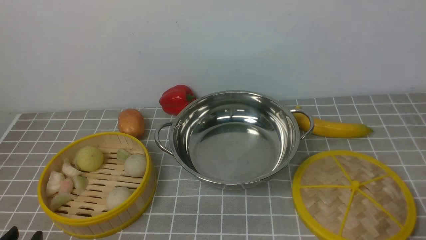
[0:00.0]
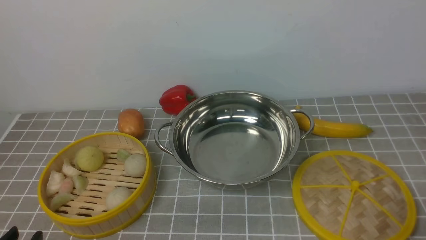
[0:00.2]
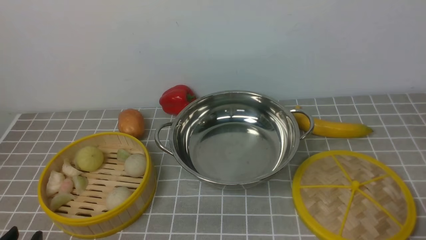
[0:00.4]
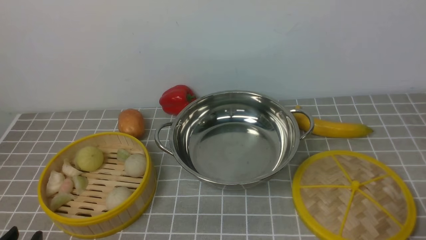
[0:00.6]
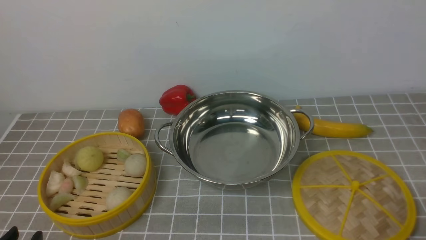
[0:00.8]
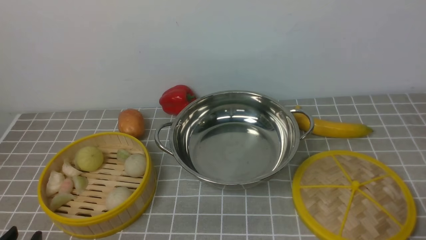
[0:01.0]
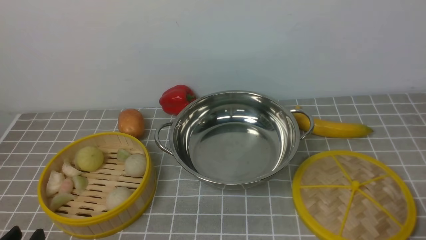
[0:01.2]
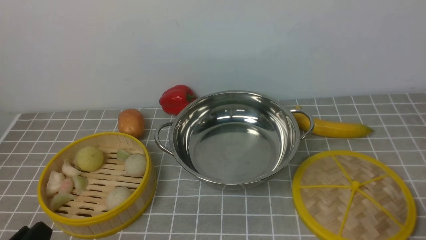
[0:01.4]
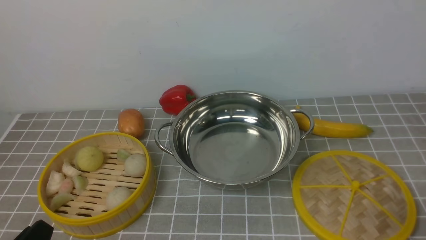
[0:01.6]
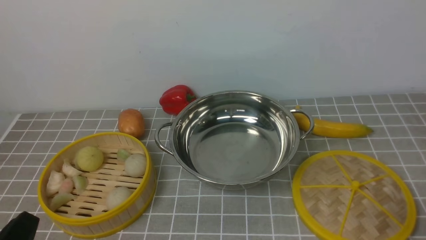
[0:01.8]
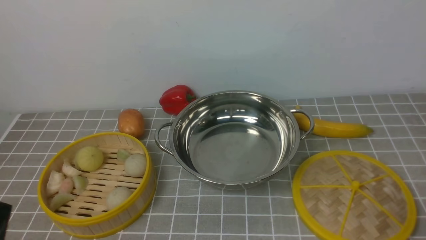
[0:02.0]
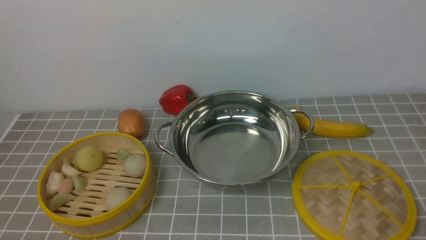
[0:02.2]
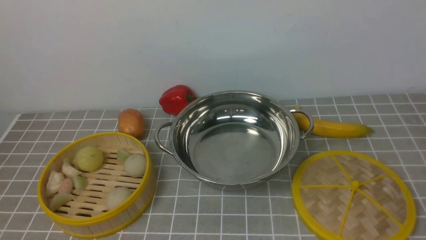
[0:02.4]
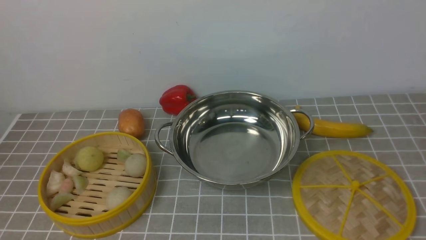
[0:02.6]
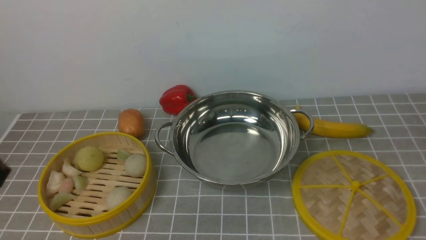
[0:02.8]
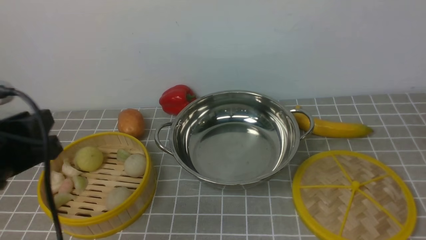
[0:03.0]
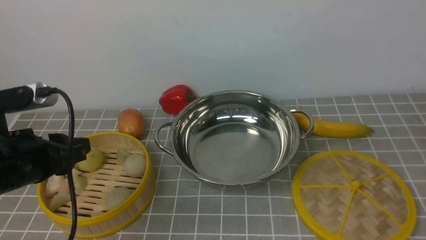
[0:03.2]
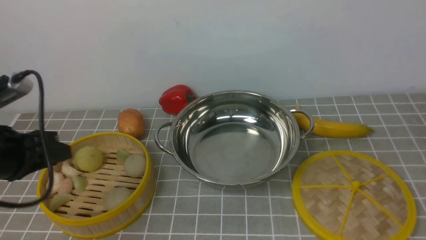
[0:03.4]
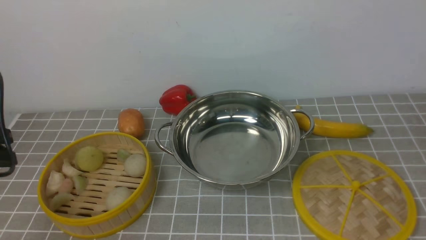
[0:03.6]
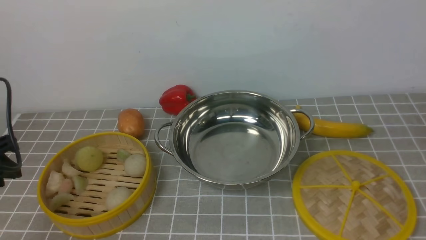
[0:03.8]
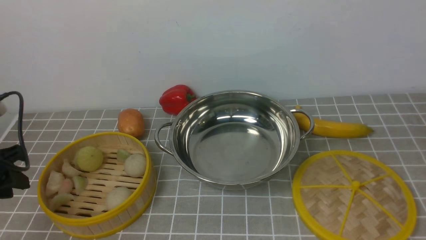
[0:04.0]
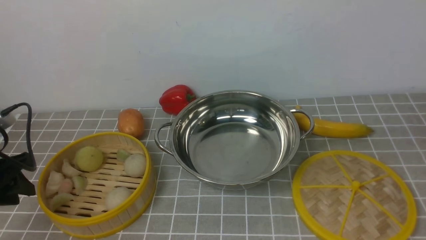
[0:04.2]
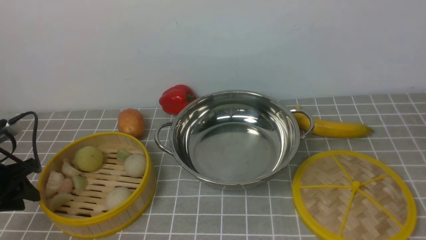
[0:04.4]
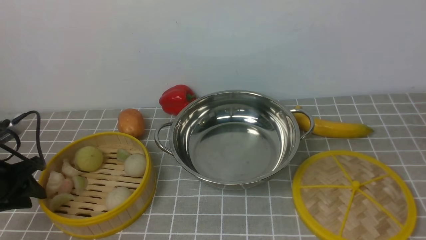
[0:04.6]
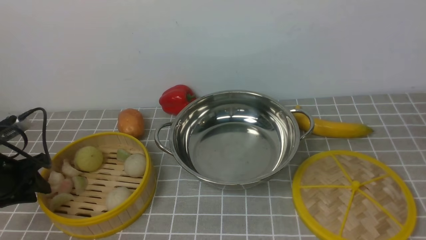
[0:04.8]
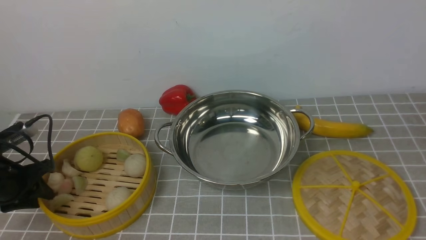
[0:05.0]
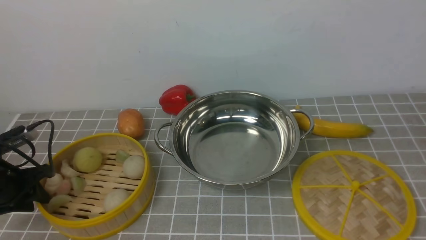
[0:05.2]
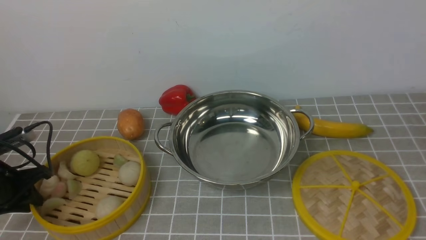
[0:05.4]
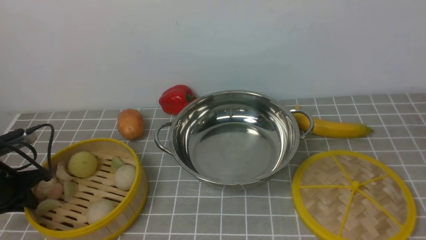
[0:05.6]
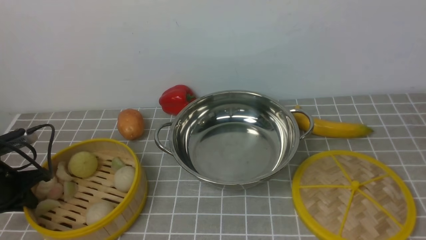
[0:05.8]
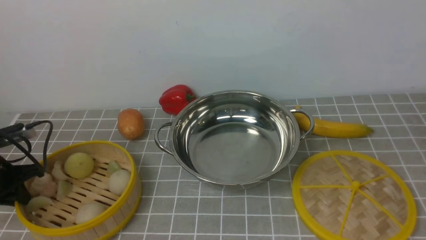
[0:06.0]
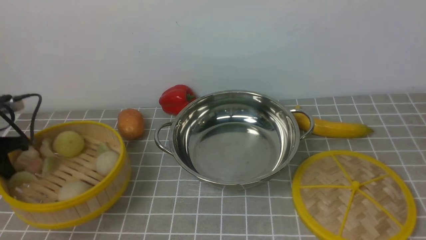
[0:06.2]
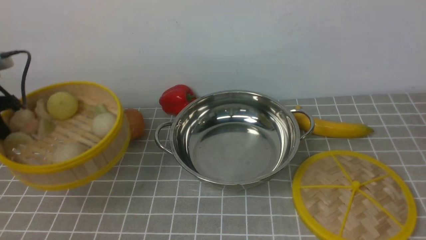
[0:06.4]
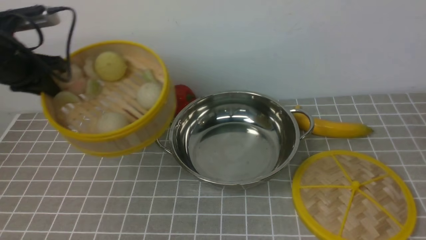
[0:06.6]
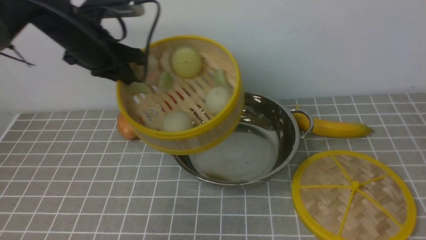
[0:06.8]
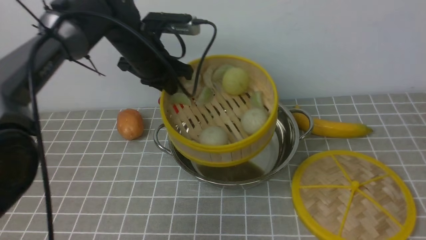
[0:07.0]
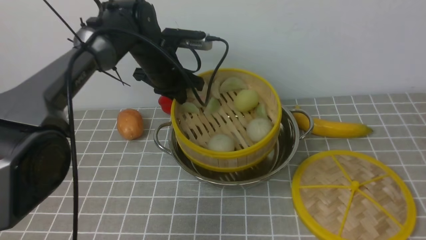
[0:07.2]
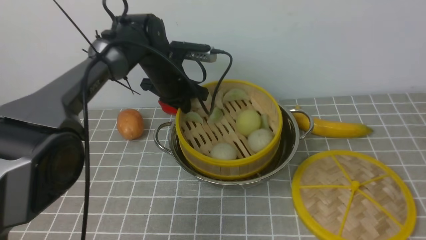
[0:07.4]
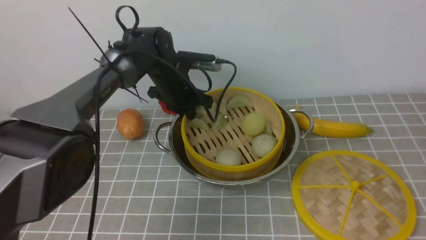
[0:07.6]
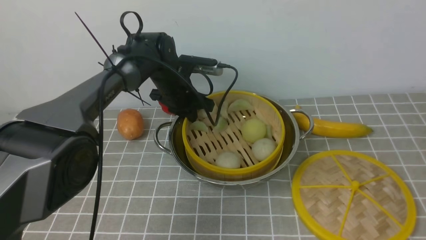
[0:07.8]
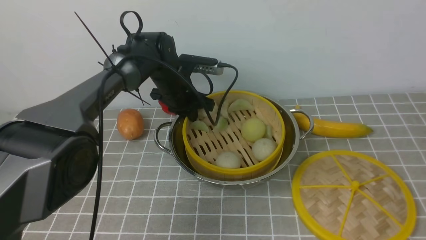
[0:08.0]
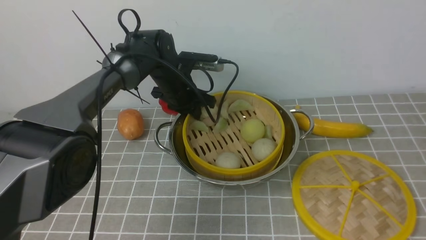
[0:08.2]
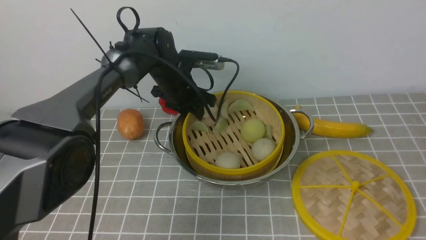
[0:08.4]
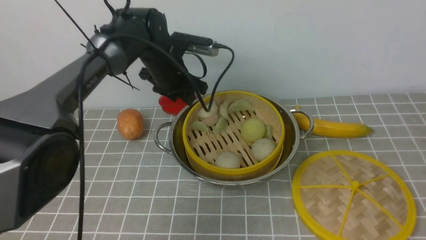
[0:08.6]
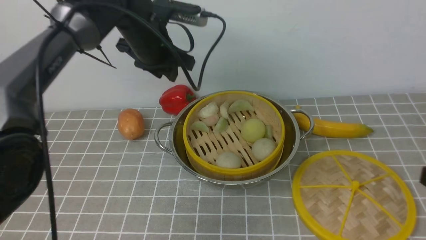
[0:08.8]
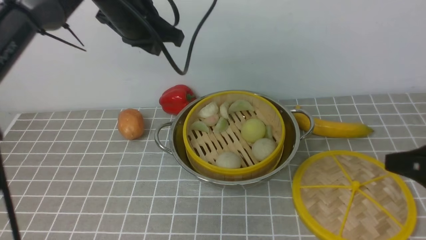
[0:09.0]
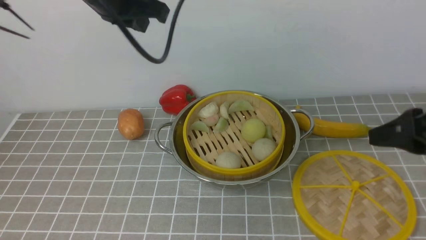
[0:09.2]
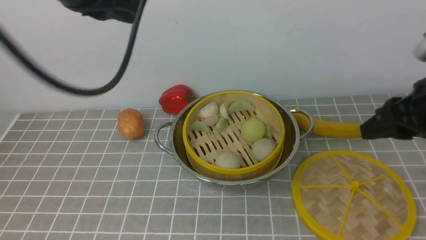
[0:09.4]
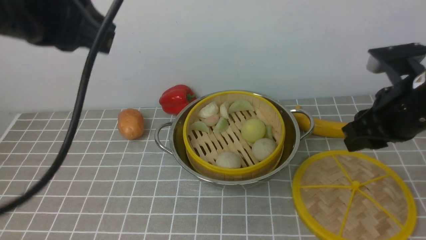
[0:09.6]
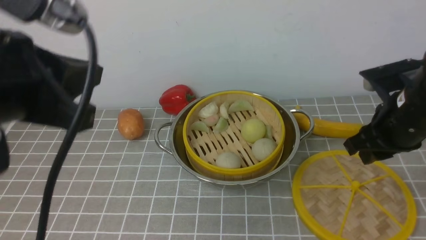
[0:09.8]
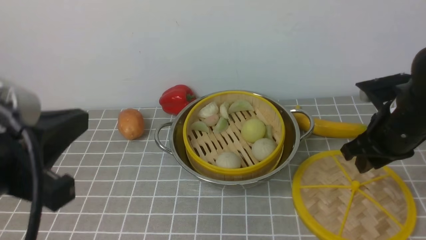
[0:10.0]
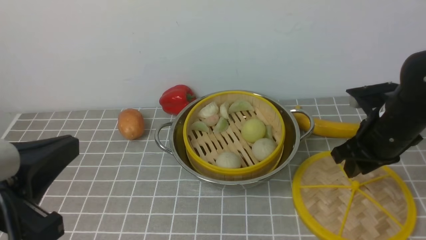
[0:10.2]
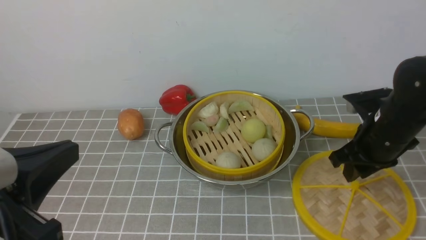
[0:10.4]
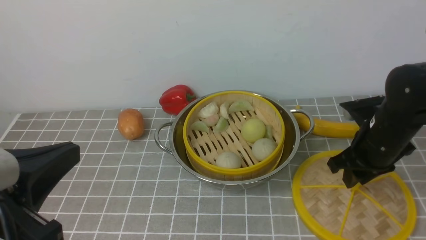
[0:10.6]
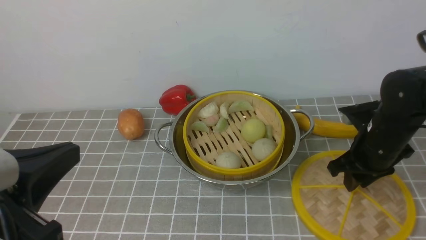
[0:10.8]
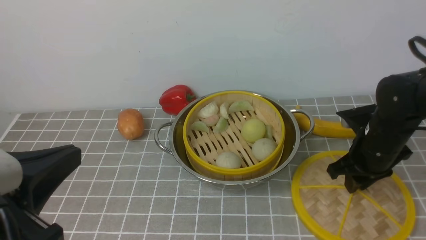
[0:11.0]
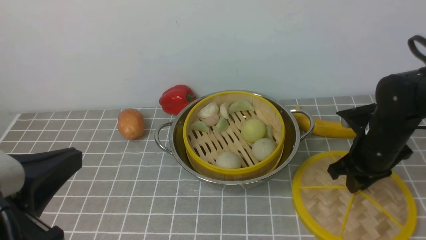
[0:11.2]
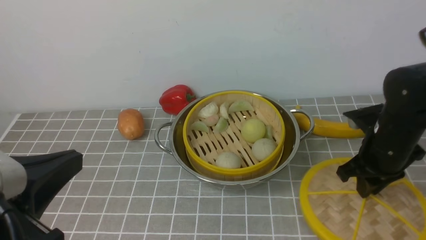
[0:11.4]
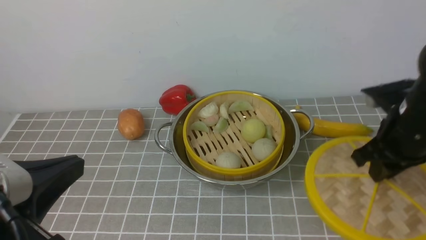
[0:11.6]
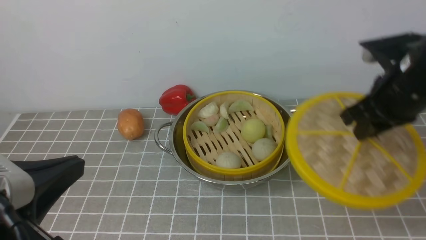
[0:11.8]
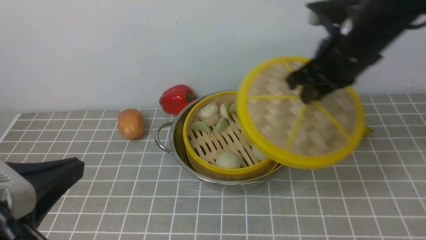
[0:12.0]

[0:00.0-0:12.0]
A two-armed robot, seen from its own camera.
Task of the whole recording: place the steamer in the pot on the grey tablecloth, and put the lid on the steamer.
Step, 0:00.0 to 0:06.0: use the left arm to lift the steamer closest to it.
Step, 0:06.2 to 0:08.4: use the left arm to put the steamer into the iron steamer pot in the middle.
Step, 0:08.6 to 0:11.4: use the right arm to lift the lid of the steamer.
0:01.6 to 0:03.0: The left gripper travels upward and forward by some 15 cm.
0:03.0 to 0:04.4: The left gripper shifts some 20 cm to the left, forward and downward.
0:04.4 to 0:06.0: The left gripper closes up.
0:06.0 to 0:07.6: The left gripper shifts about 35 cm to the right and forward.
0:07.6 to 0:09.0: The right gripper moves forward, approximately 5 cm; the left gripper travels upward by some 15 cm, and opens, then closes once more.
0:09.0 to 0:10.4: The right gripper is displaced forward and downward by some 20 cm; the left gripper is displaced backward by some 35 cm, and closes.
0:10.4 to 0:12.0: The right gripper shifts about 10 cm upward.

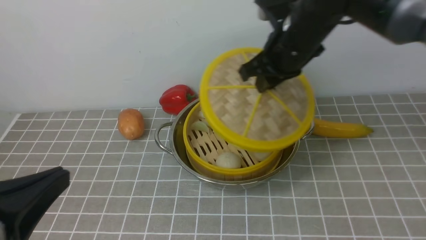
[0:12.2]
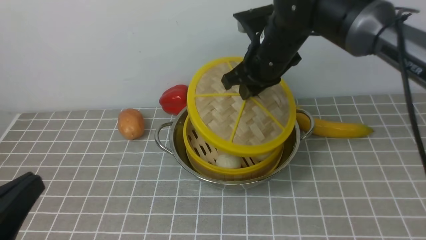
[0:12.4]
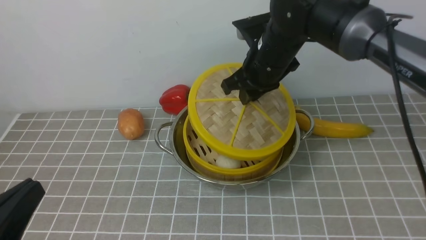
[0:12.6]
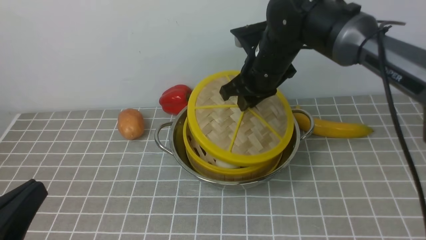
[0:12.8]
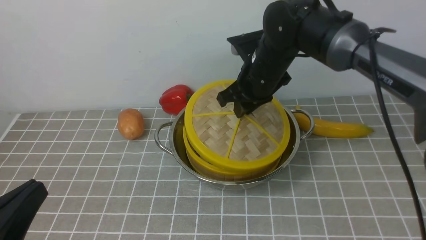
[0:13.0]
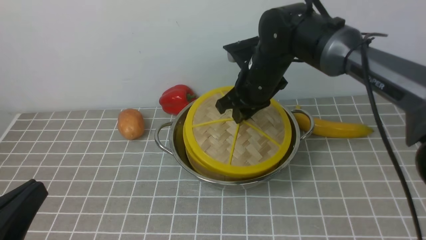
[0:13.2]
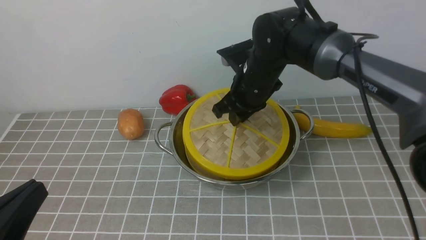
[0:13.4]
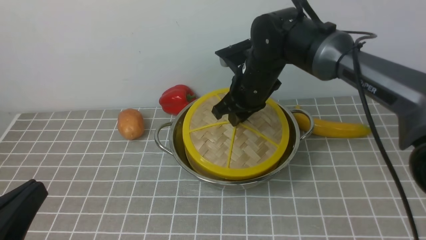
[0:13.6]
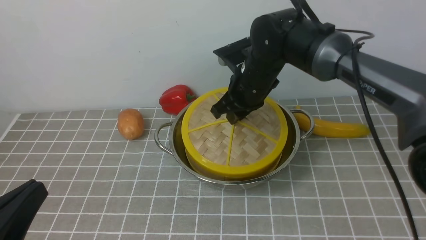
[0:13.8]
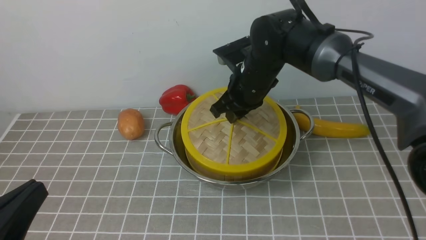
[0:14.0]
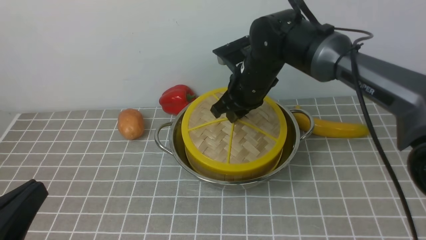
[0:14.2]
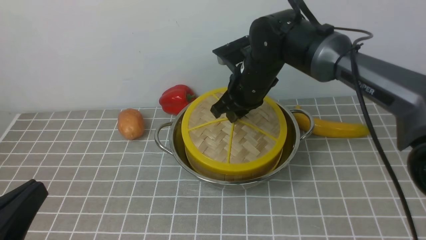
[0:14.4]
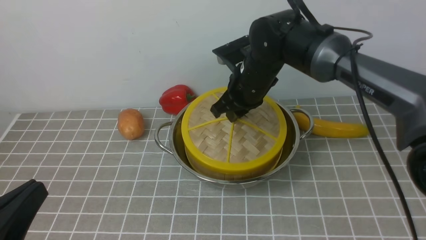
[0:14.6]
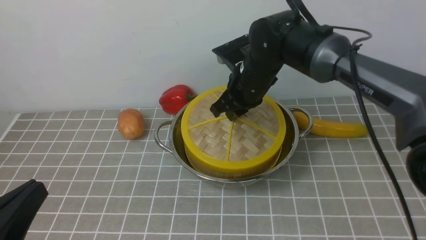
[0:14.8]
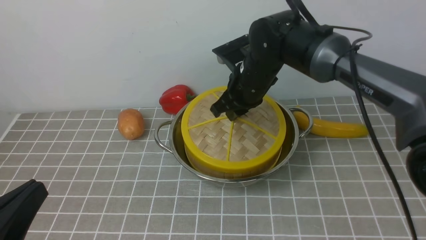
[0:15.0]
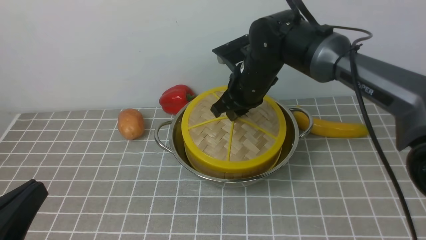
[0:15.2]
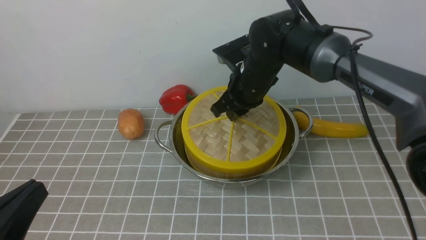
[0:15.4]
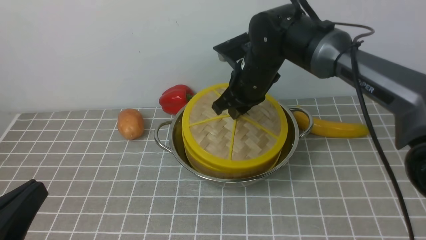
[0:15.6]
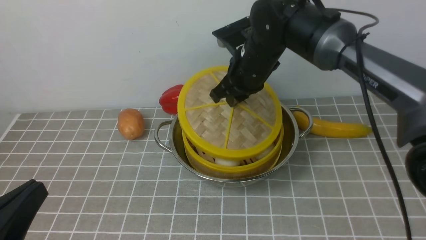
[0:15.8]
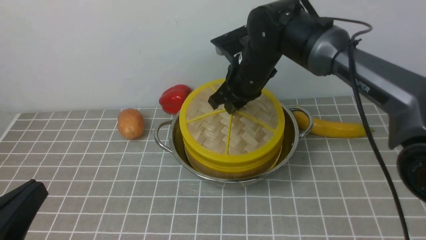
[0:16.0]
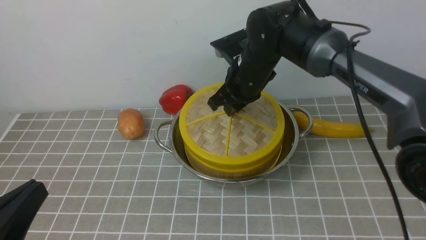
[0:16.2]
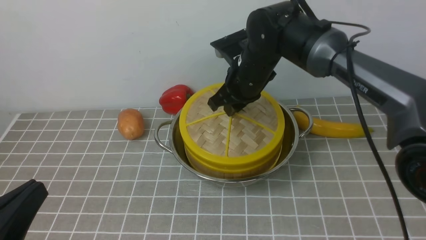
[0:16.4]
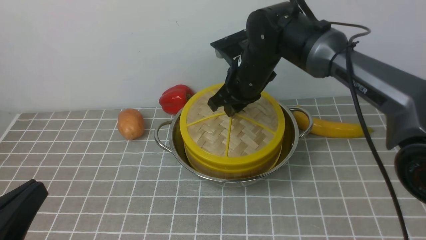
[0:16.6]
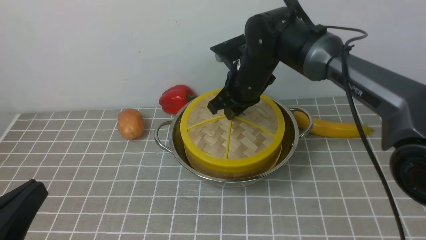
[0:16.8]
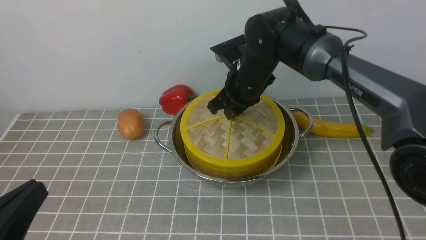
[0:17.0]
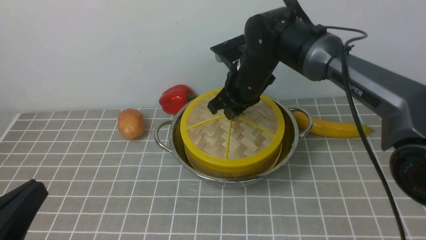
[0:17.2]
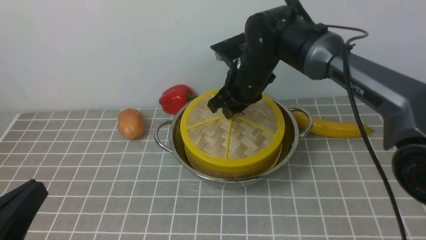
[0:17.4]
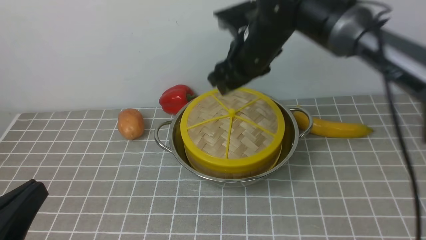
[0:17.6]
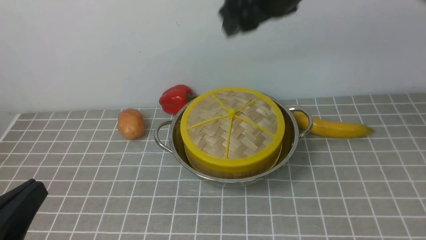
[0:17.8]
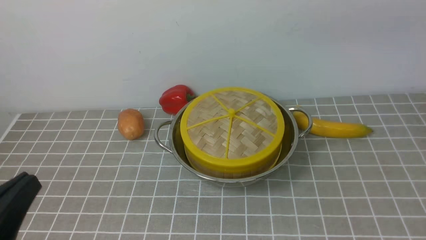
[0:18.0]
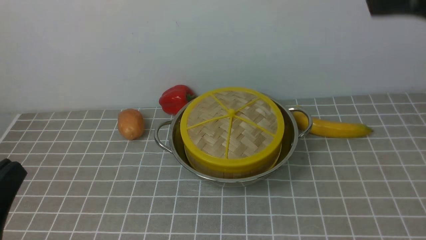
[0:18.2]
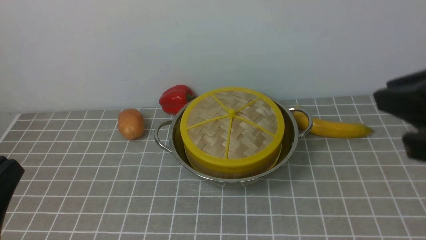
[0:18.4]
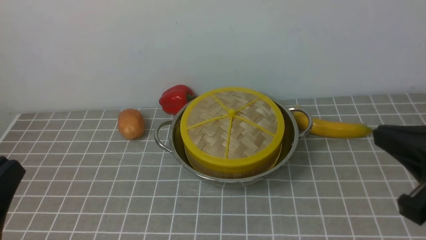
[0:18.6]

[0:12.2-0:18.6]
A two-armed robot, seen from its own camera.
Task of the whole recording: place the steamer in the pot on the grey tablecloth, and put the lid on the steamer.
Step, 0:12.2 to 0:17.4: use the right arm to place the steamer lid on the steamer.
0:12.2 to 0:13.8: The right gripper heads downward and to the left, covering roughly 10 cm.
0:13.8 to 0:15.4: The two grippers keep their place.
0:15.4 to 0:17.0: The grippers stay close to where they were, moving slightly.
0:17.0 to 0:18.6: The right gripper moves backward, to the right and upward, approximately 35 cm, and opens, then closes again.
